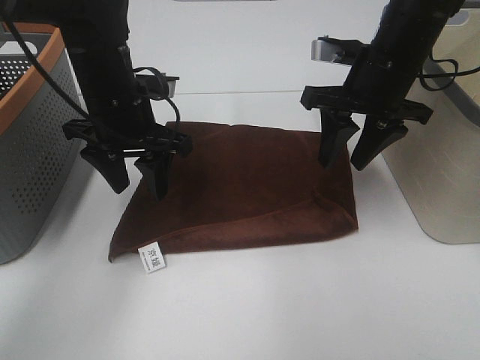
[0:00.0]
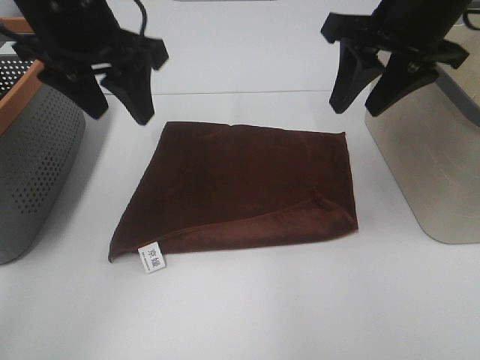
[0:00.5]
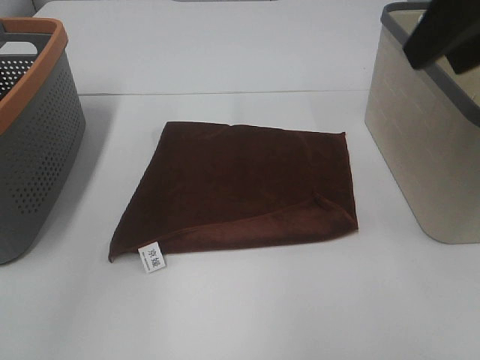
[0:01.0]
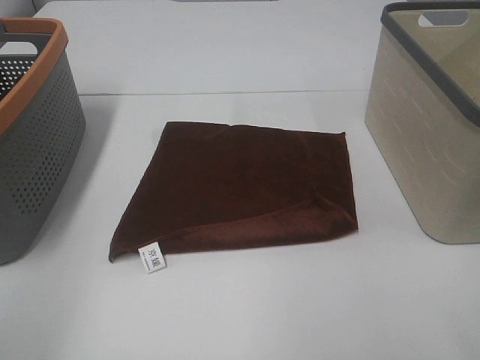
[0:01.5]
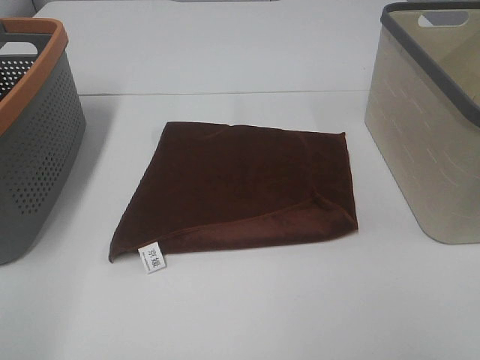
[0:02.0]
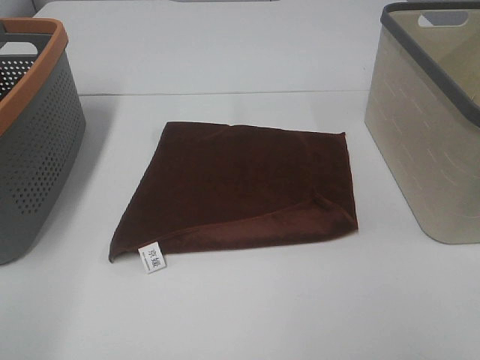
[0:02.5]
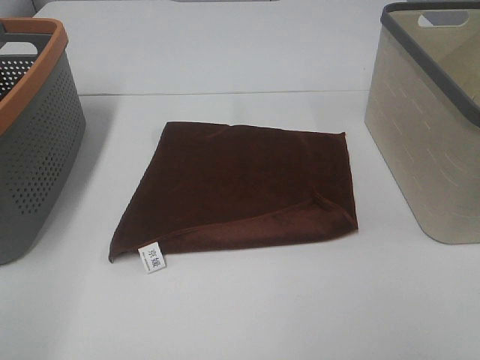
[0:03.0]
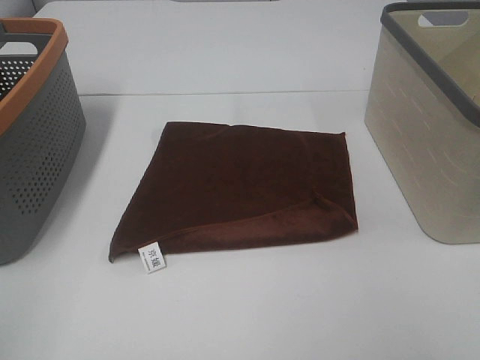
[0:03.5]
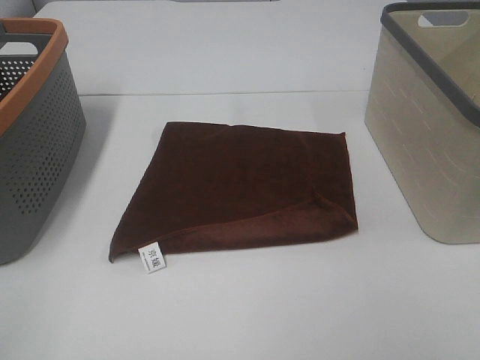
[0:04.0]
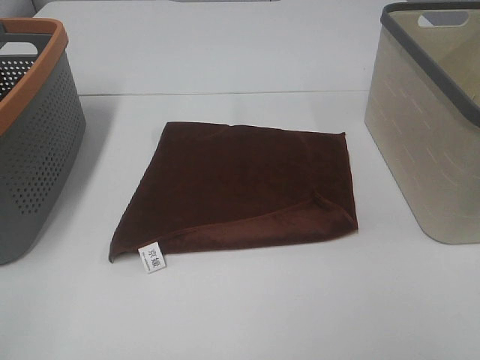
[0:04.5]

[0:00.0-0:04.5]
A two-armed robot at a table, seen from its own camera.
Task of the whole recording: Remove the towel and place it.
0:00.0 to 0:02.0: The left gripper heads backward and to the left, covering some 35 cm. The right gripper is displaced backward by about 35 cm.

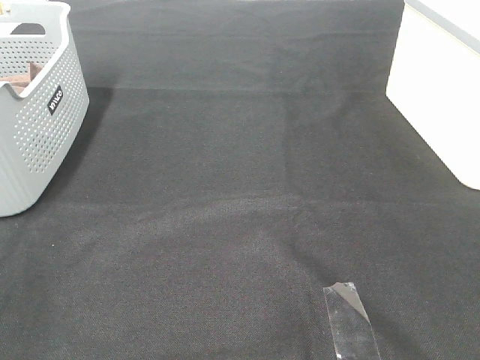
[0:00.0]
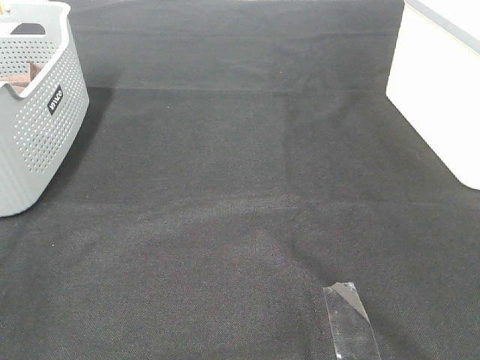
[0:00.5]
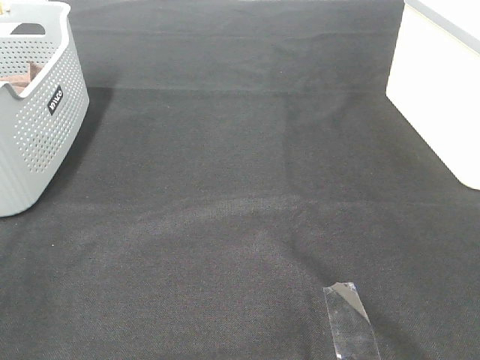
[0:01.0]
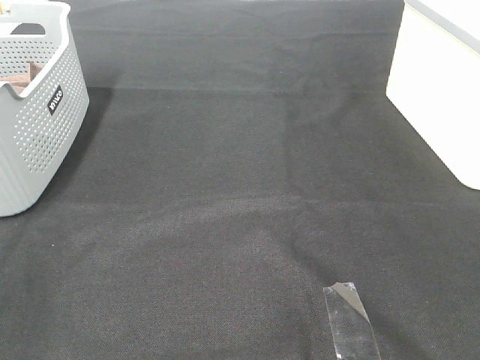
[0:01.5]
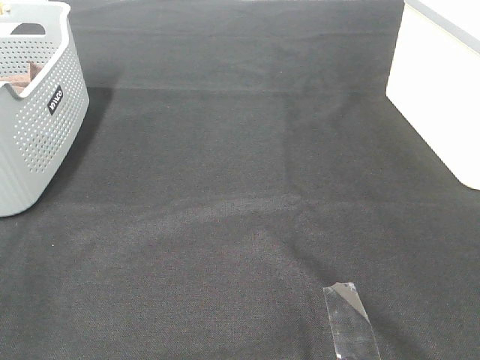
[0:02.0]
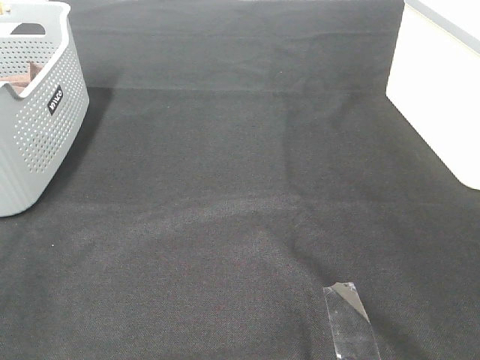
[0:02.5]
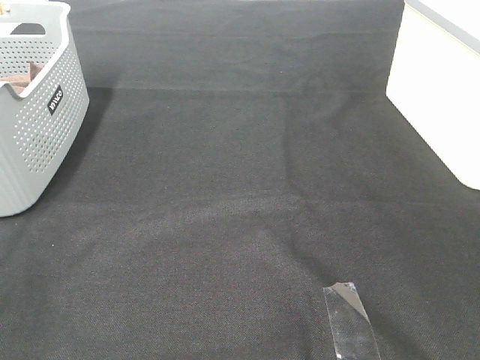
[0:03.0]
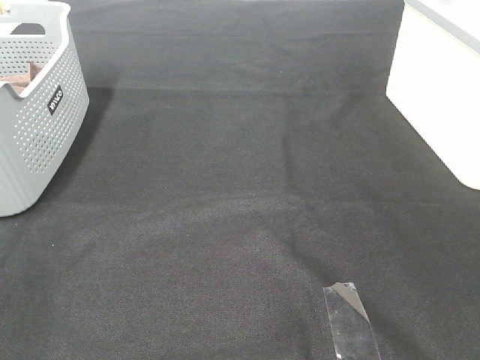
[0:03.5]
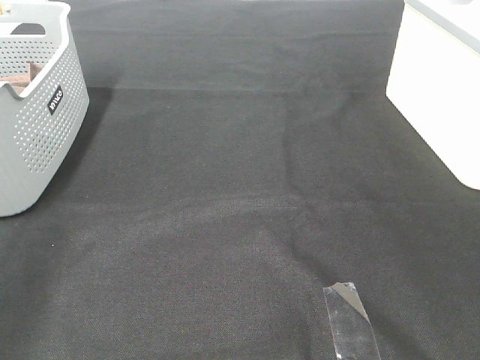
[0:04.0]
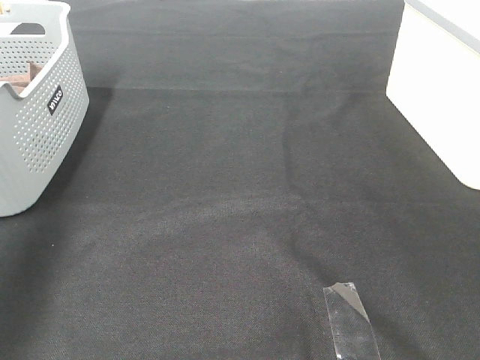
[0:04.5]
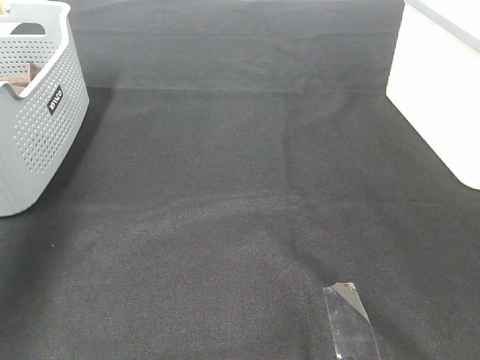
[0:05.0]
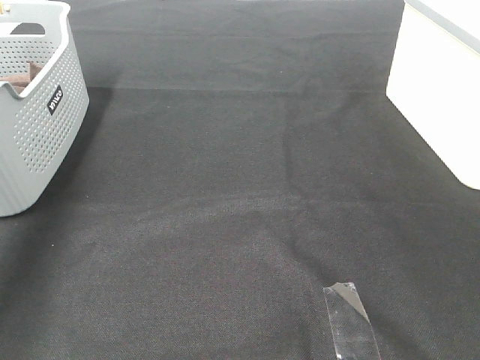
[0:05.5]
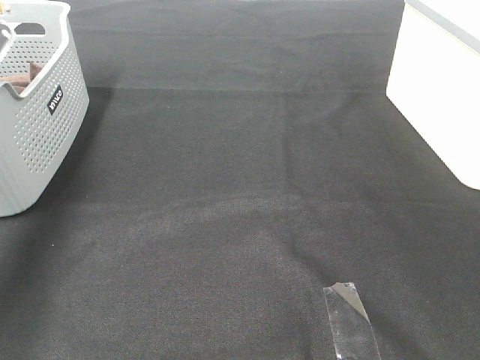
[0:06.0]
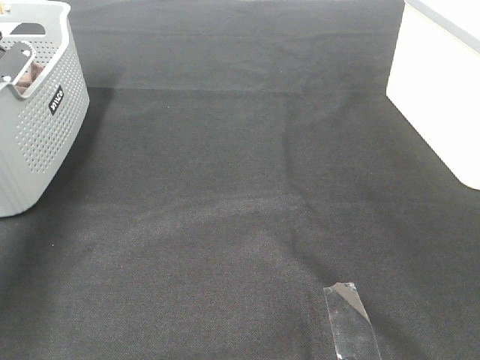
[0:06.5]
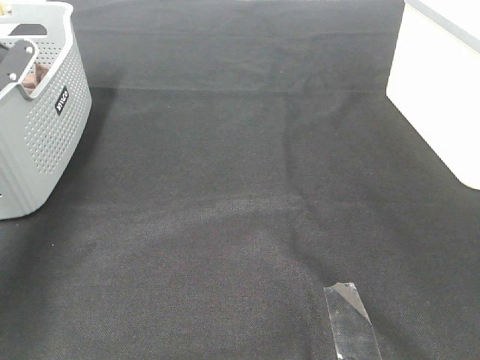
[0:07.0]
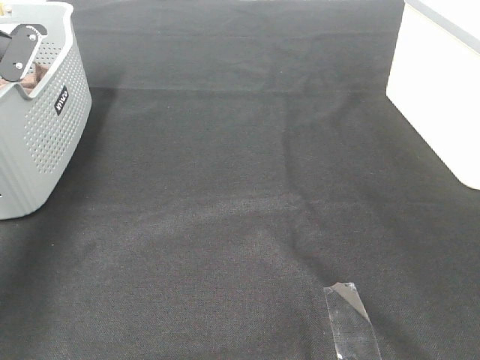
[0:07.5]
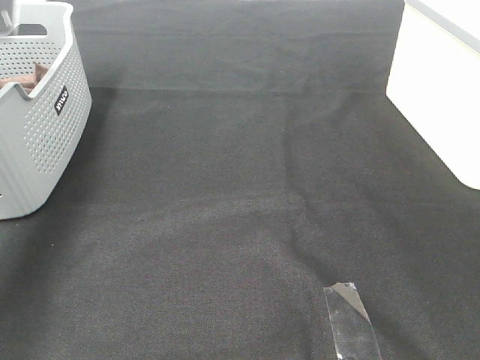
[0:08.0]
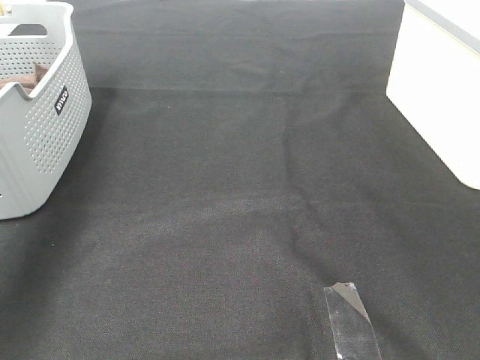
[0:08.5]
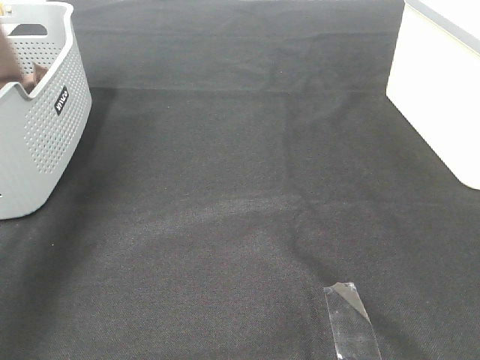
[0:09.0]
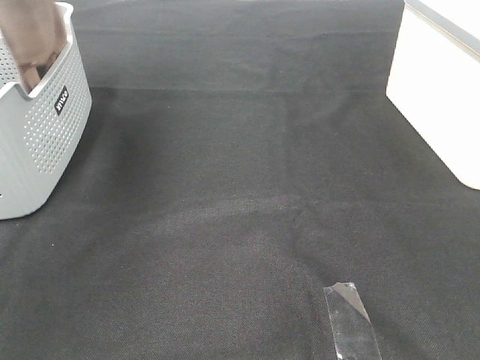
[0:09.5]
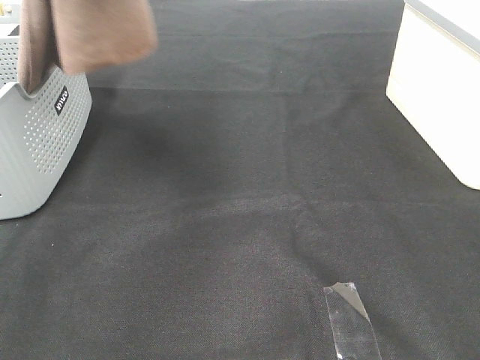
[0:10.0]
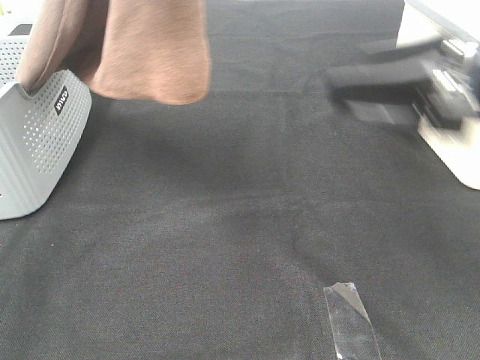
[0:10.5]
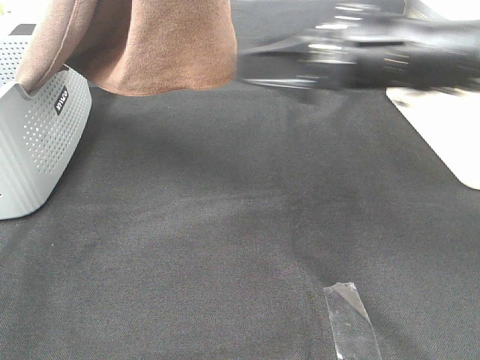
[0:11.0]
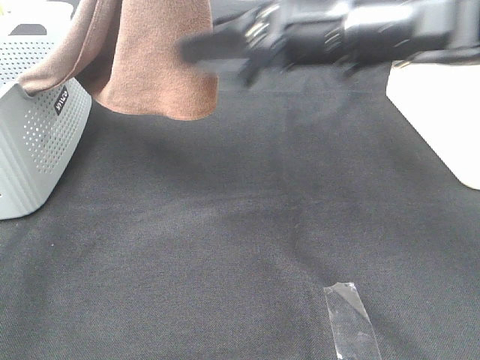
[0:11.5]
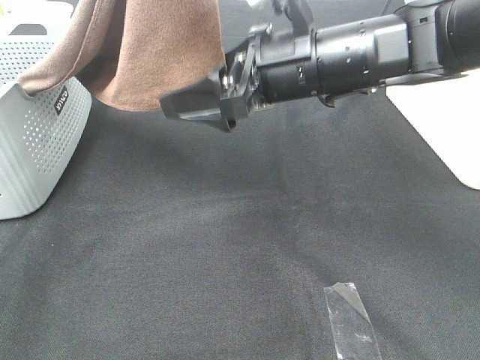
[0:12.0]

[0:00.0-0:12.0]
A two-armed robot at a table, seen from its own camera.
Task of the whole recording: Remove the towel and place it.
Step, 0:09.0 to 0:12.0: Right hand: grab a corner of the brown towel and straighten it.
0:00.0 to 0:02.0: Both grippers stay put.
0:04.0 to 0:06.0: The left gripper travels forward and downward by some 40 cm.
0:06.0 to 0:08.0: The left gripper shifts roughly 5 cm upward, and closes its fingers.
0:08.0 to 0:10.0: The right gripper travels forward by some 10 cm. Meanwhile the left gripper moves upward, to the right and backward, about 35 cm.
0:10.0 to 0:12.0: The right gripper goes approximately 30 cm forward and to the left, while the left gripper is displaced to the right by roughly 5 cm.

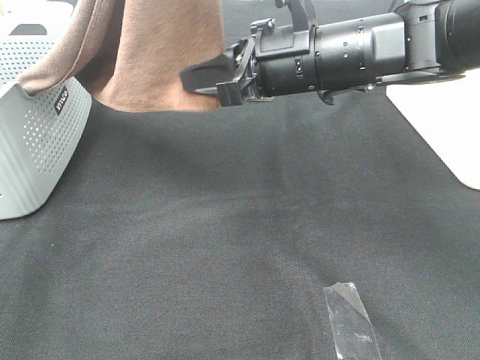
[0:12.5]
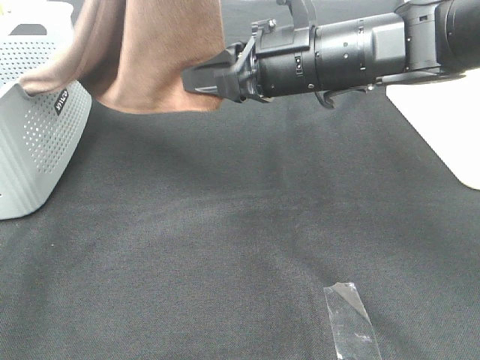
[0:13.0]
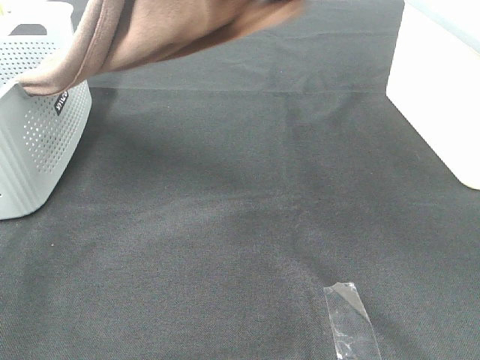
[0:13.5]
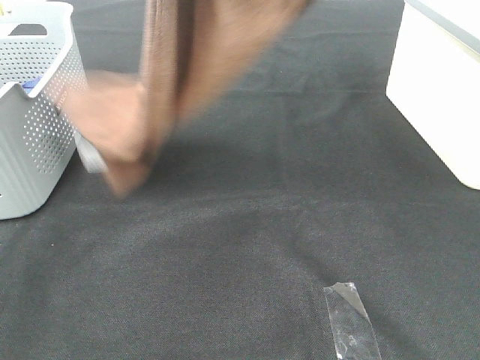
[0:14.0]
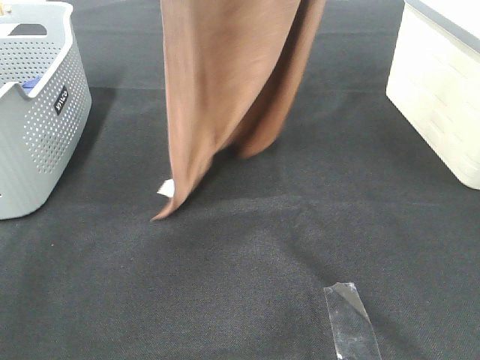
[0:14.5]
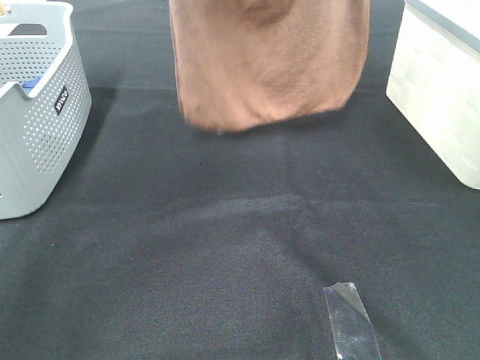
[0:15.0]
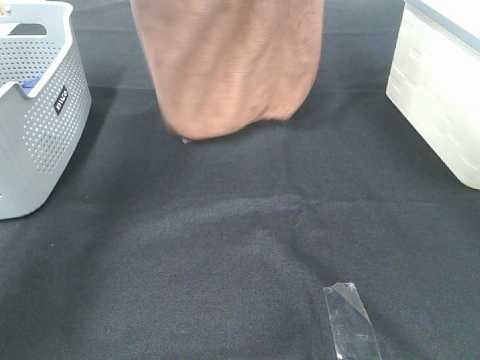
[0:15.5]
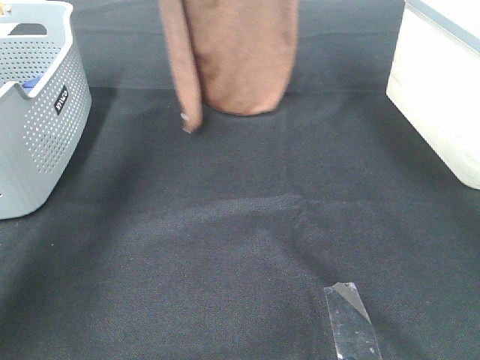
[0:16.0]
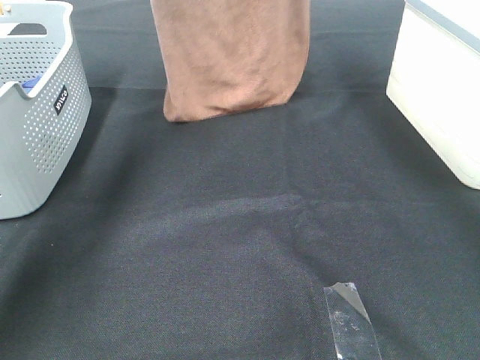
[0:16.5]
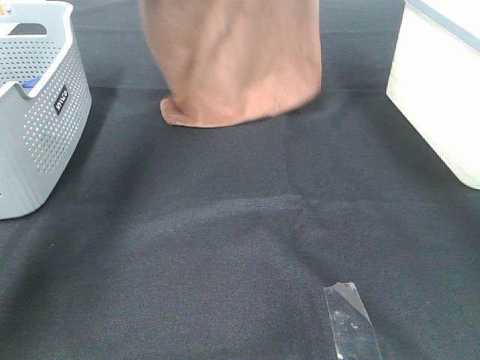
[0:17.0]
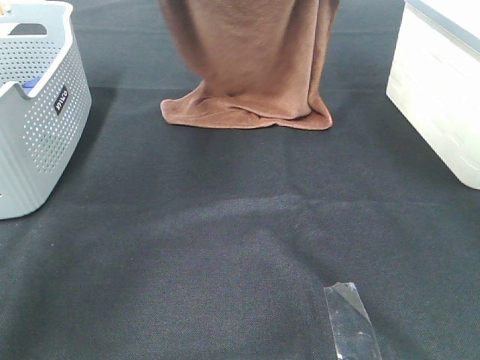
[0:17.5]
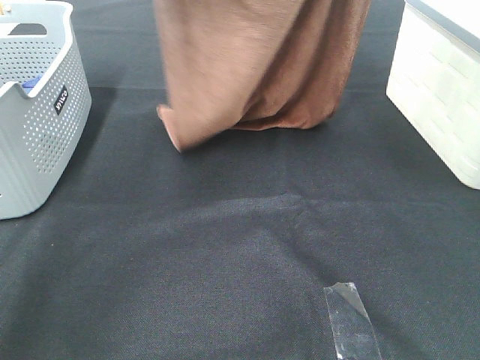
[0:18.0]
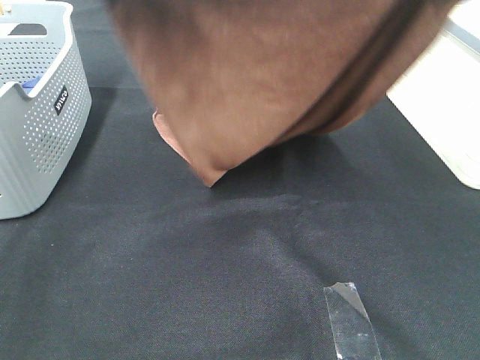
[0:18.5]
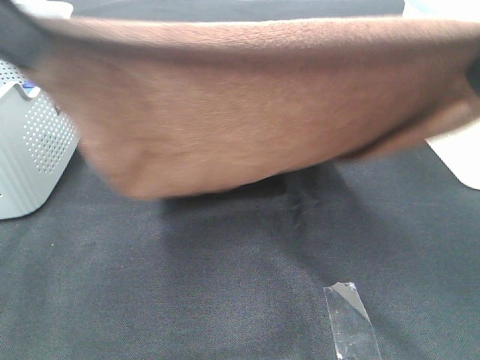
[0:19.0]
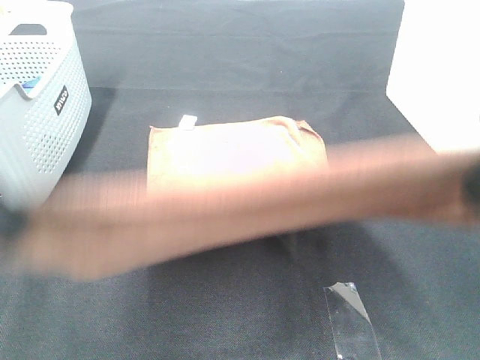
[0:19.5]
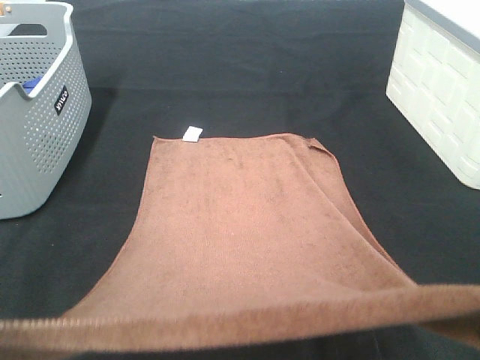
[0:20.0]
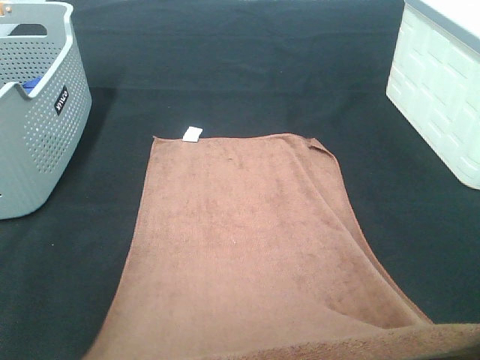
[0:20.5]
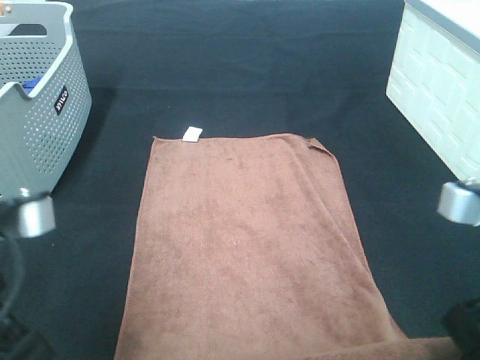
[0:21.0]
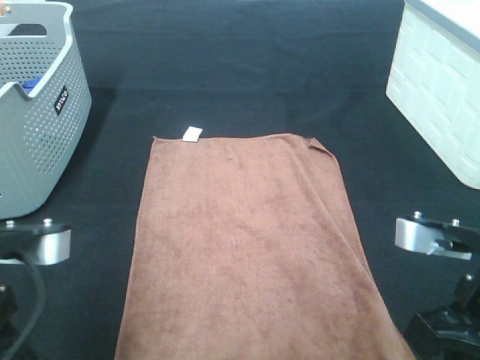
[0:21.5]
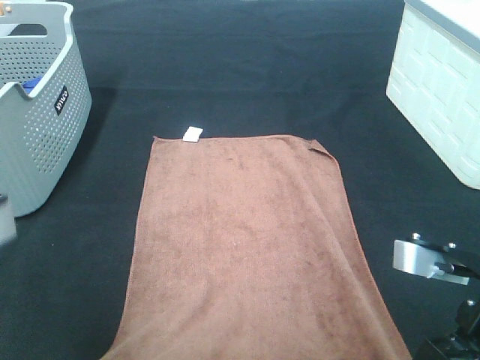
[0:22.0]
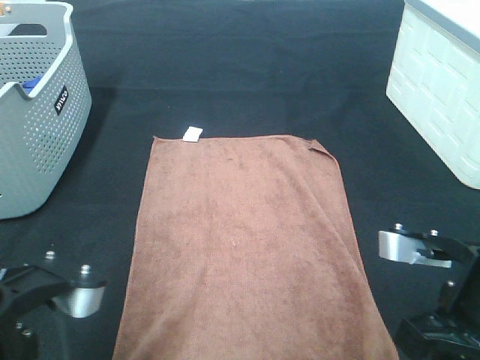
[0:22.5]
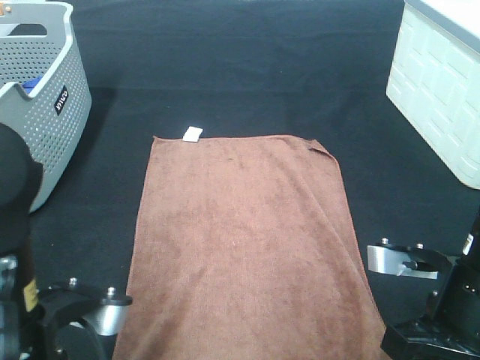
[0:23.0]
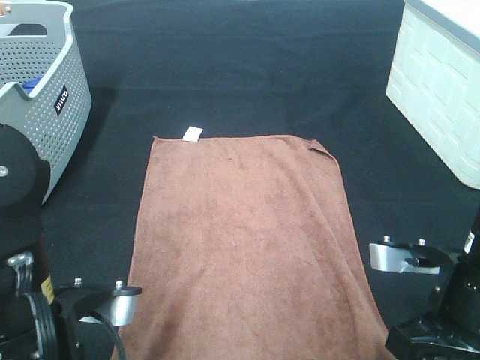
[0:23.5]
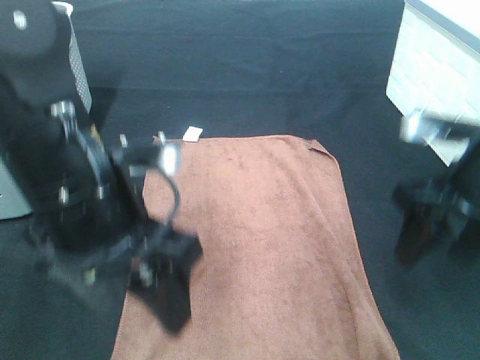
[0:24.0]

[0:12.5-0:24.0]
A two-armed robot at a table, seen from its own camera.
Task of the whole recording: Remove the towel and place it.
Step, 0:12.5 to 0:18.5: Left hand: spread the brown towel flat on the table.
Step, 0:12.5 to 0:18.5: Right hand: spread the brown towel flat on the table.
0:12.5 to 0:14.5: The right gripper shifts about 30 cm upward, while the left gripper moves forward, about 10 cm.
0:14.5 to 0:16.5: The left gripper goes roughly 15 cm forward; the right gripper travels forward and downward by roughly 15 cm.
0:16.5 to 0:18.5: Both grippers move backward, about 25 cm.
0:18.5 to 0:20.0: Both grippers travel together backward and downward, about 20 cm.
0:20.0 to 0:22.0: The two grippers go approximately 10 cm downward.
0:22.0 to 0:24.0: The right gripper goes roughly 10 cm forward, and opens. Meanwhile the left gripper goes some 15 cm forward and to the right, and opens.
